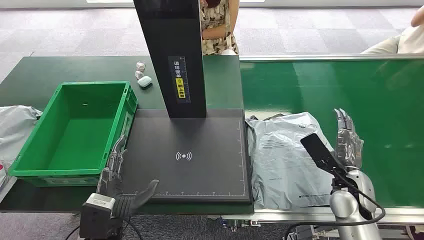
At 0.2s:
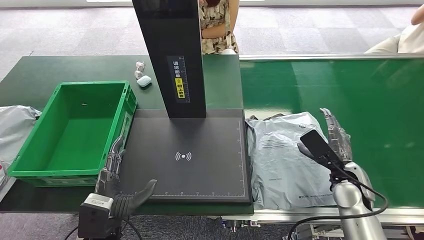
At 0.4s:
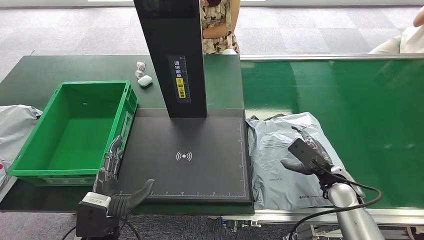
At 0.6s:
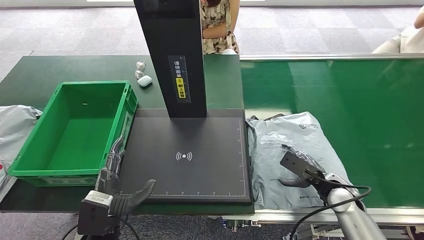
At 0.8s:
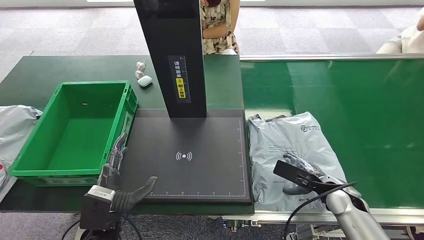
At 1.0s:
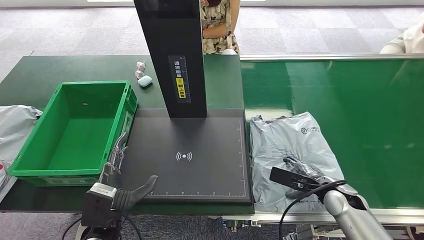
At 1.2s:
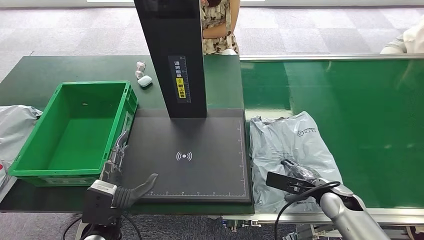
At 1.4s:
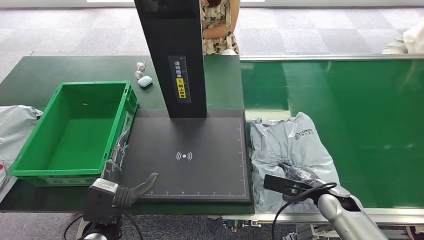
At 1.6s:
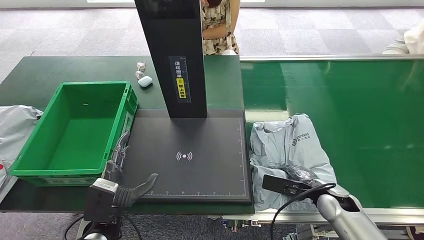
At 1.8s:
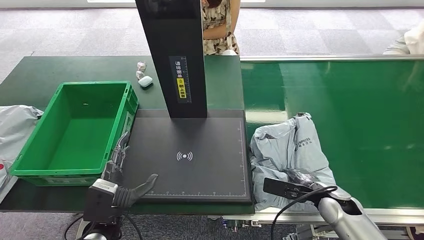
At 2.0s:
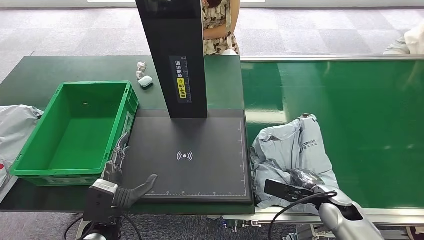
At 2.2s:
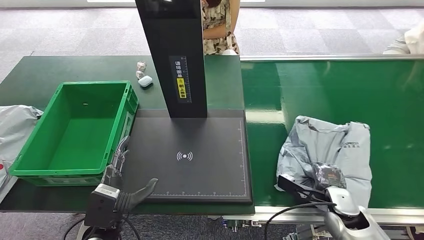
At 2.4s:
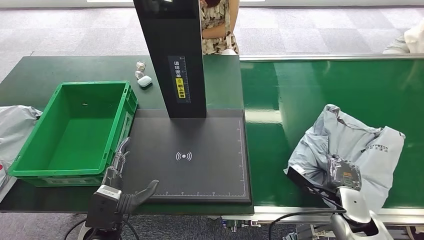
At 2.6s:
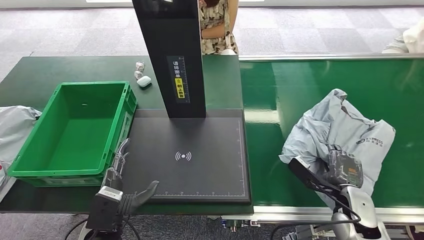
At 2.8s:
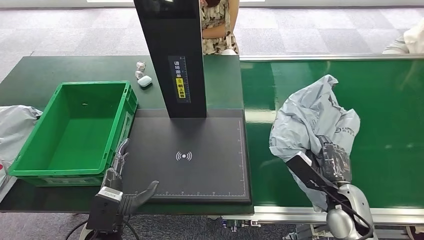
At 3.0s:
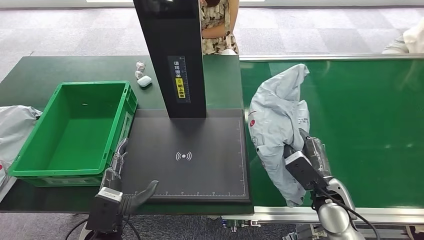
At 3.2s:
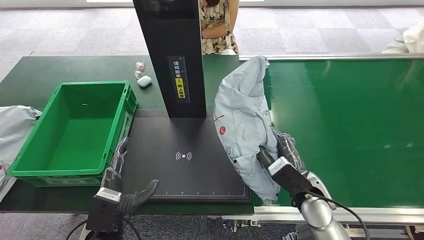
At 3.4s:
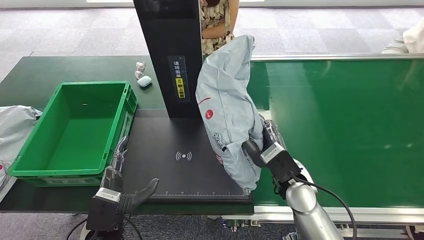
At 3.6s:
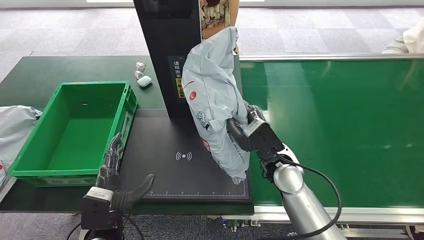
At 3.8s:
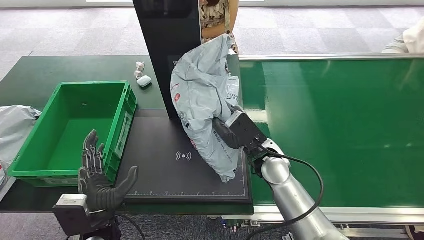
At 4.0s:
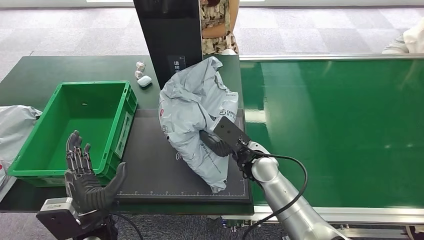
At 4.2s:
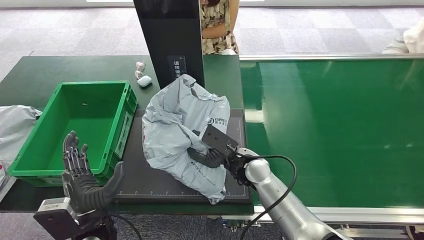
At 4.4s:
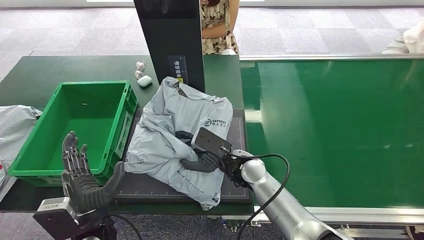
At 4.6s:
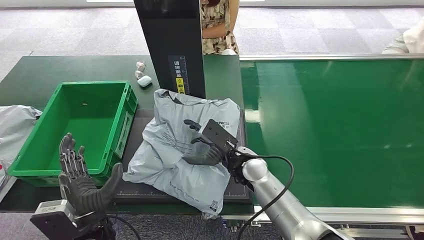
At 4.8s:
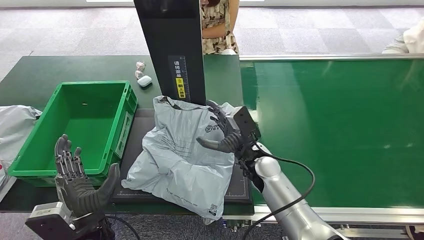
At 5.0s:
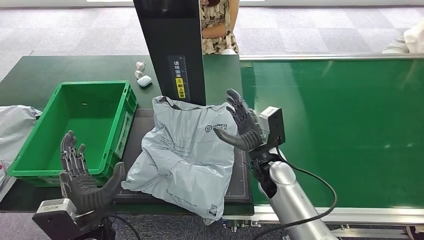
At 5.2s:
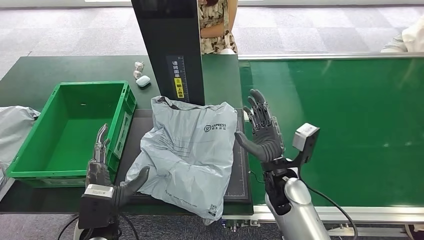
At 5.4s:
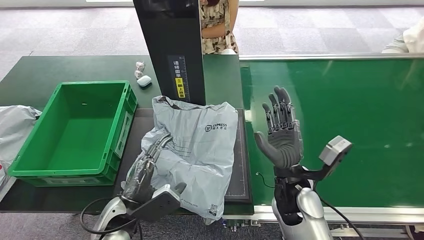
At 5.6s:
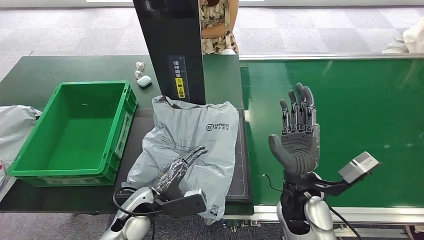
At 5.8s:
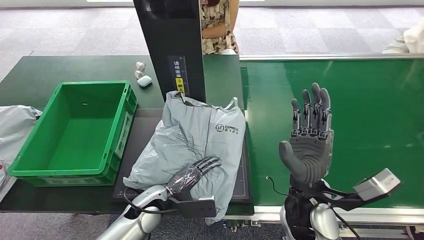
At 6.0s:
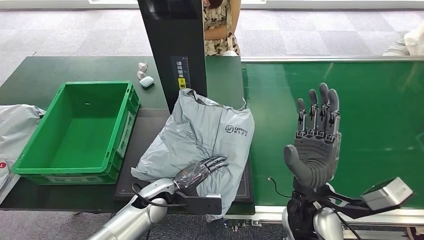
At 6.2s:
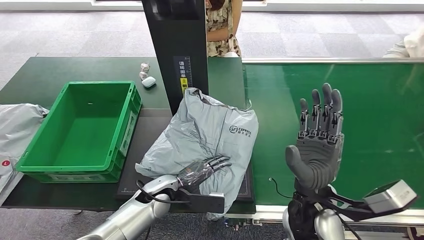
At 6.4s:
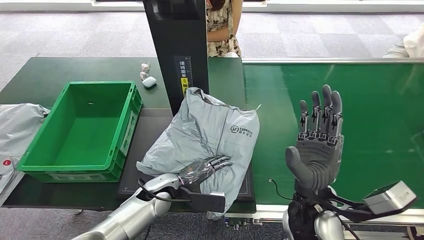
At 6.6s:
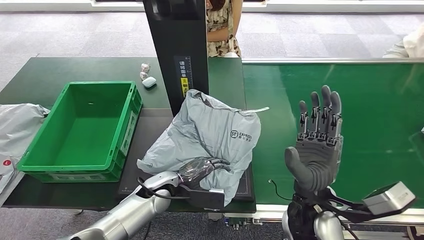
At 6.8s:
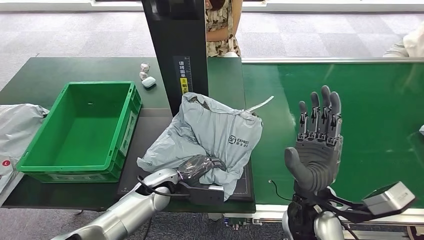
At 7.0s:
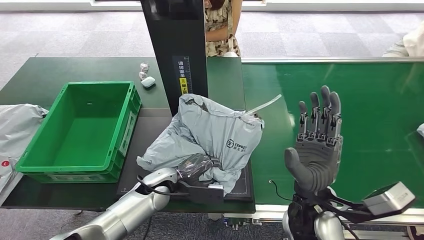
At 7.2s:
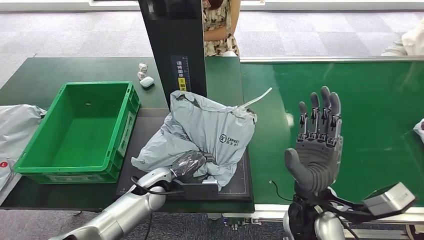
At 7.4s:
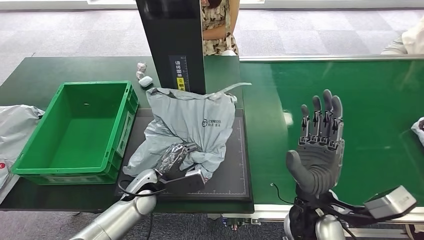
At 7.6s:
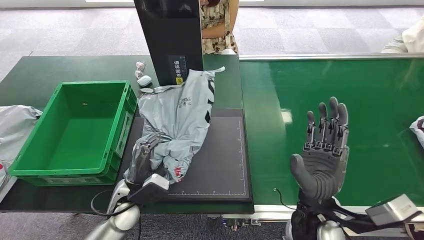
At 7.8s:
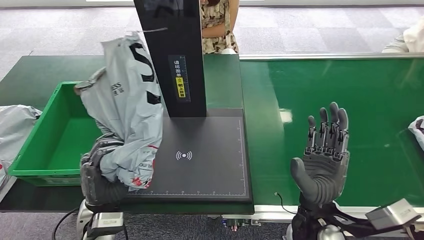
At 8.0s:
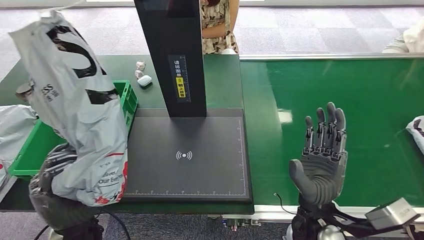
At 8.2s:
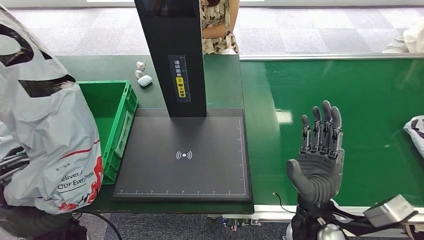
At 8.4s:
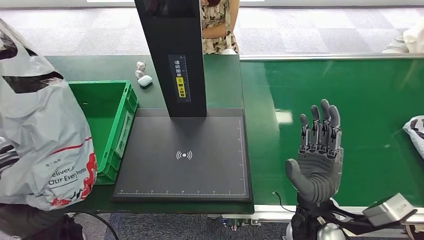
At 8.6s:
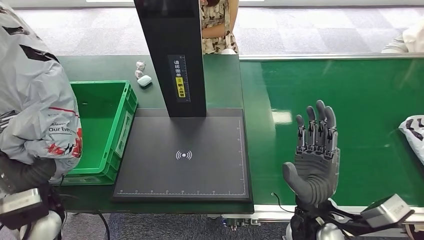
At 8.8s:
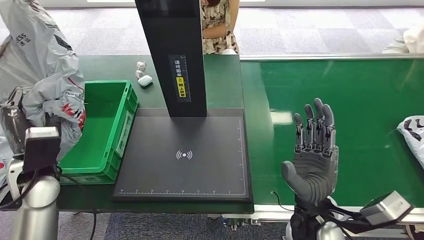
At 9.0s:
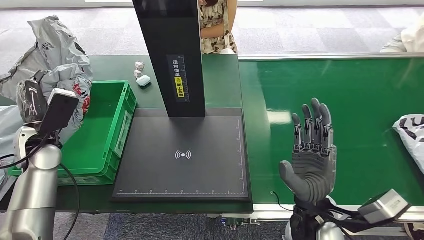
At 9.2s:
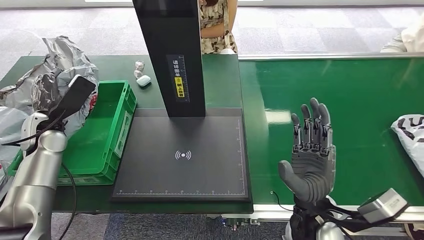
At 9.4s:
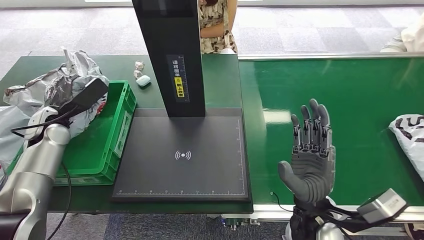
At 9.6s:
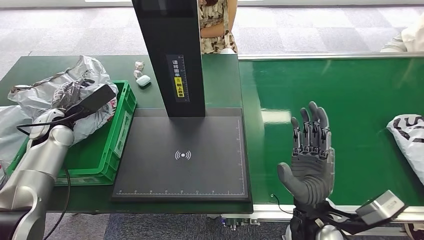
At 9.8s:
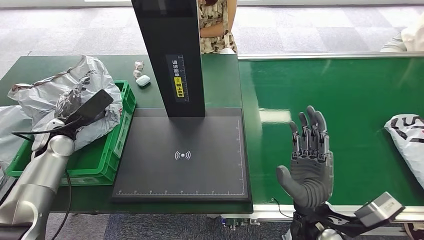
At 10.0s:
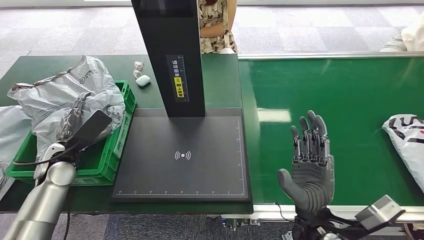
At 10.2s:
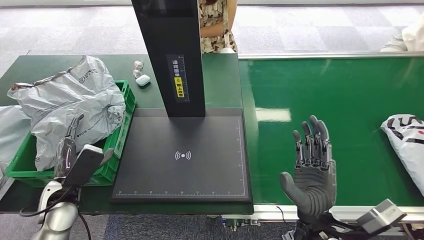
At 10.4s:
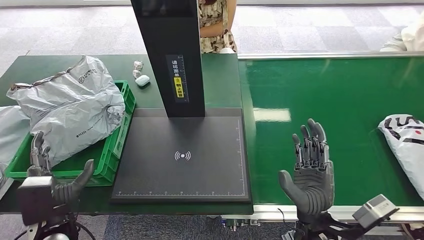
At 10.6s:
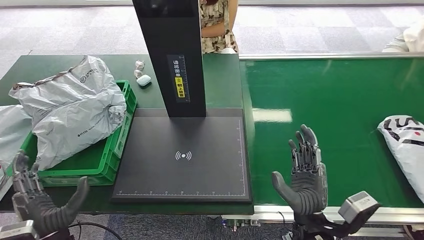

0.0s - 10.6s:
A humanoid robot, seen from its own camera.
Step, 0.0s - 2.8s: Pick up the package from the conveyor belt.
Step, 3.2s - 5.0s: Place the package onto the inbound machine.
Step, 5.2s - 7.8s: Pick up the package from the inbound machine.
Step, 8.2s - 10.6s: Place the package into the parcel locker.
1.6s - 3.0s: The right hand goes approximately 5 cm upward.
